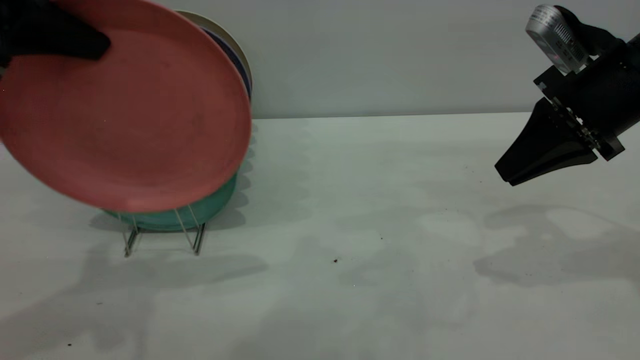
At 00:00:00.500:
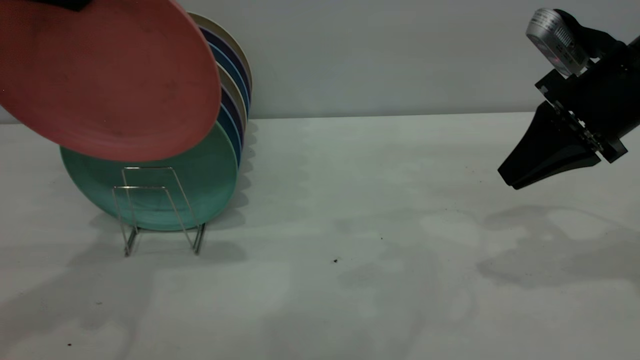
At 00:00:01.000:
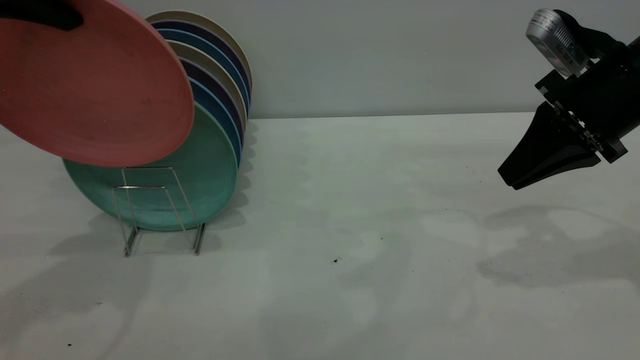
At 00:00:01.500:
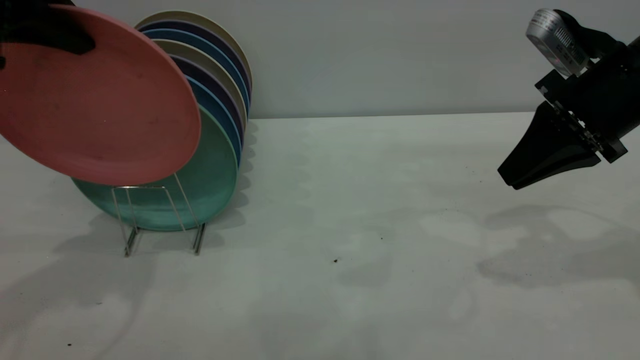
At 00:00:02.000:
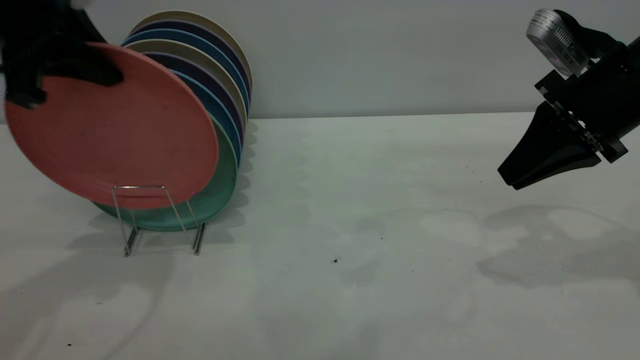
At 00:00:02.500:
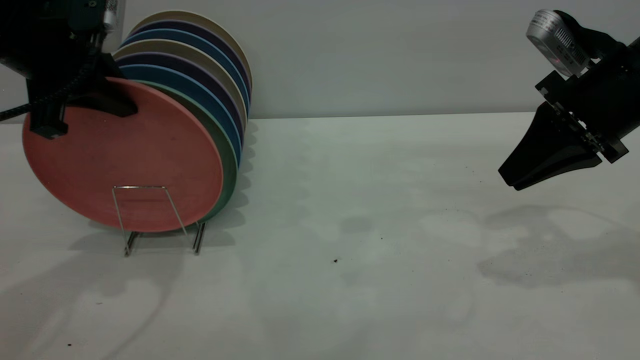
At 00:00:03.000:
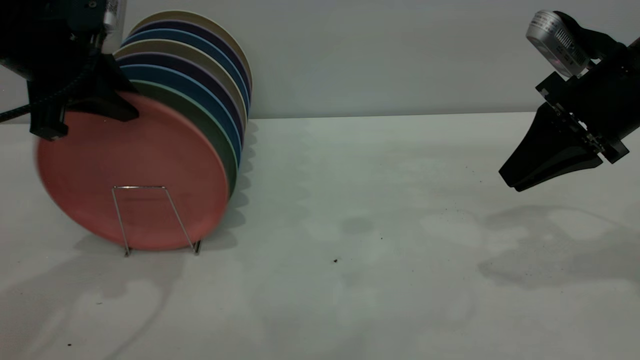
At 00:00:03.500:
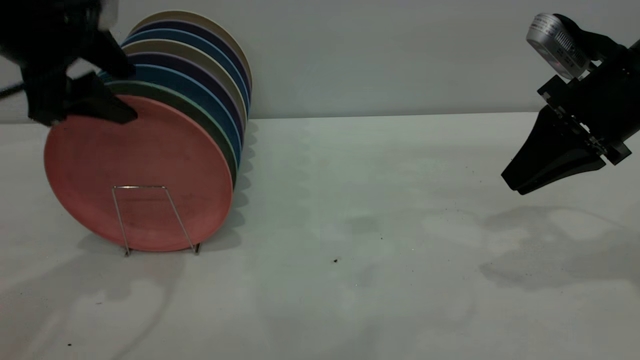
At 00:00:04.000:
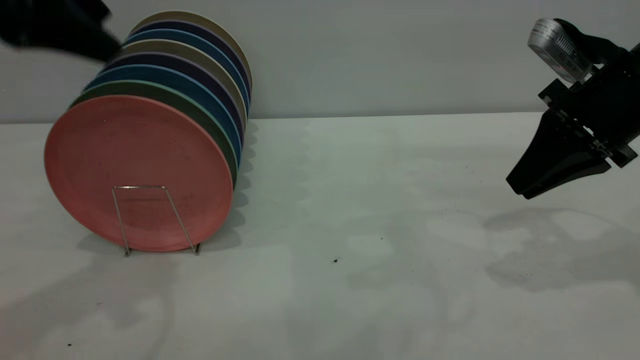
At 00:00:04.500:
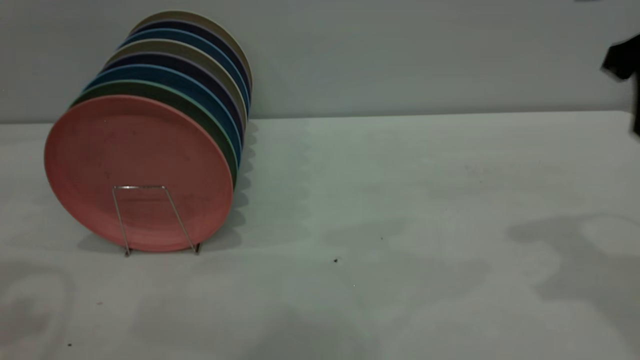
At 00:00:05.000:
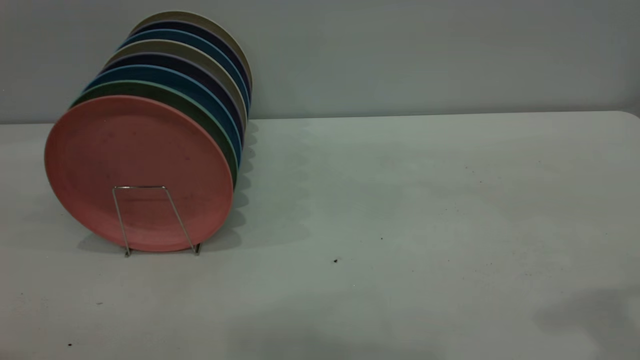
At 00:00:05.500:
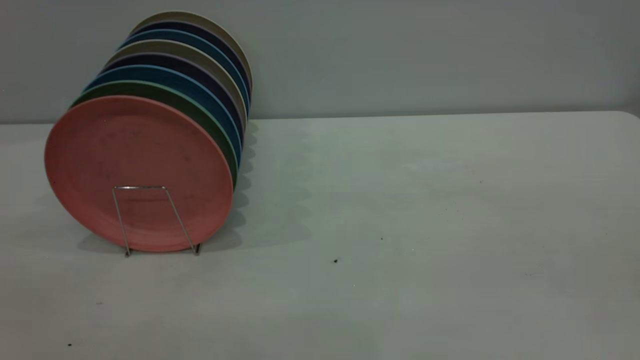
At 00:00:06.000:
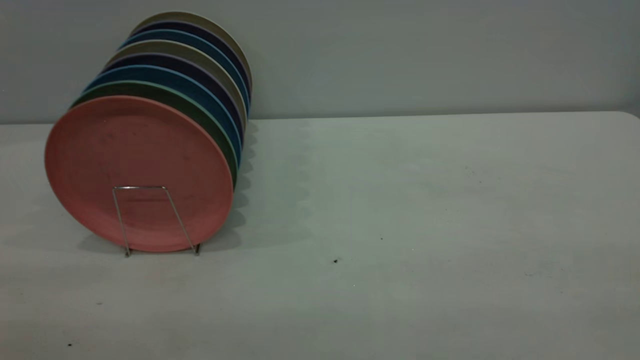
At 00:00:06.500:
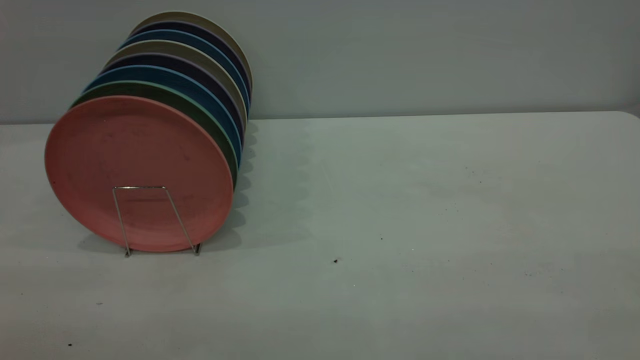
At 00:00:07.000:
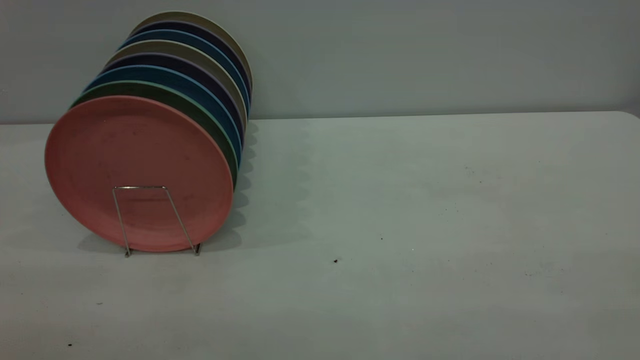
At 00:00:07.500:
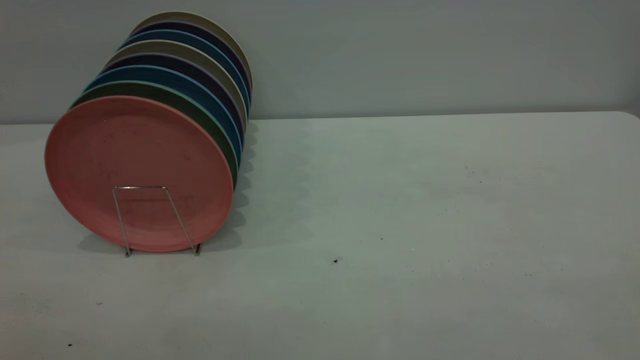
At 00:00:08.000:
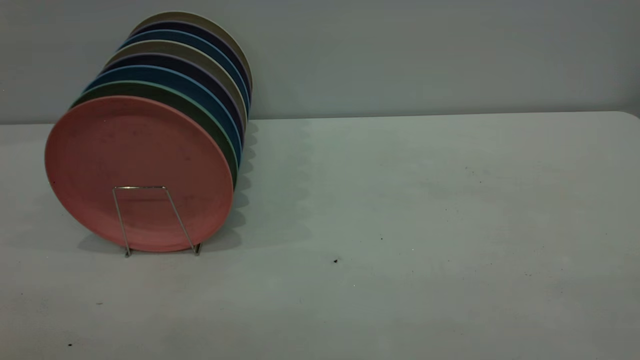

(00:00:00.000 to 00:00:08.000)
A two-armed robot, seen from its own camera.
Task of the whole recording: the right gripper grasp the pink plate, the right gripper pass the pink plate to the left gripper, and the left gripper place the pink plate on the plate rack.
Step, 00:00:00.000 - 00:00:03.500: Place the plate on the shelf.
00:00:00.000 - 00:00:02.000: The left gripper moves forward, roughly 5 cm.
00:00:02.000 - 00:00:04.000: The left gripper moves upward, about 5 cm, and opens its fingers.
00:00:04.000 - 00:00:06.000: The left gripper is displaced backward by about 30 cm; the right gripper heads backward and upward, covering roughly 35 cm, and opens.

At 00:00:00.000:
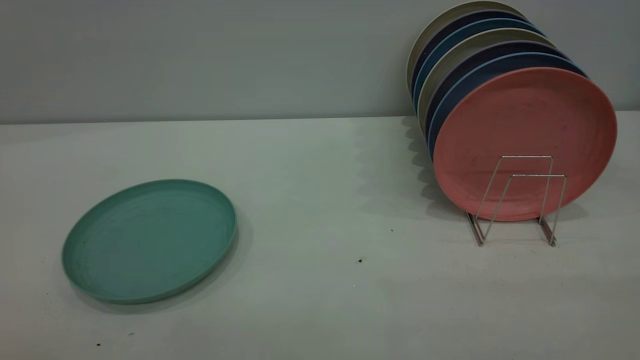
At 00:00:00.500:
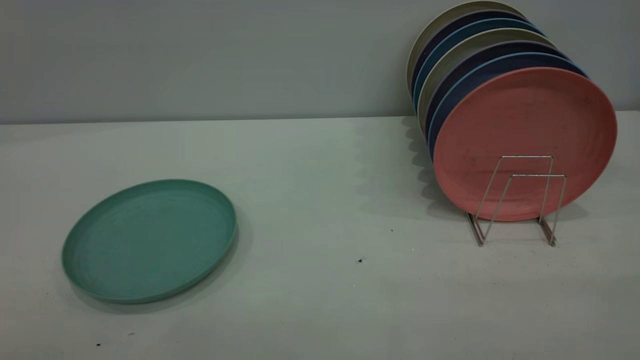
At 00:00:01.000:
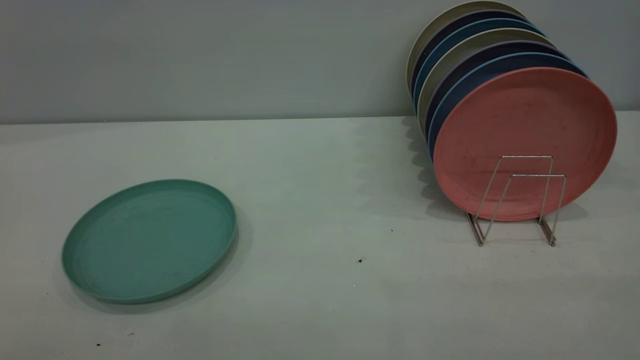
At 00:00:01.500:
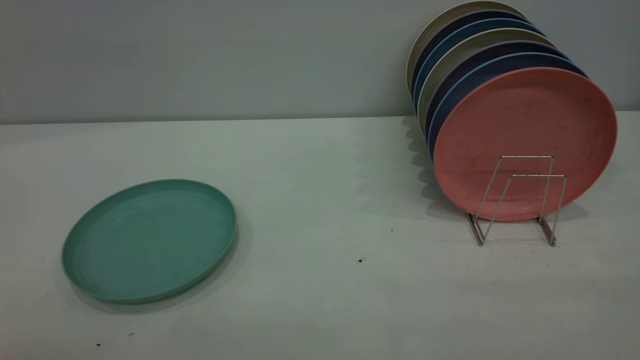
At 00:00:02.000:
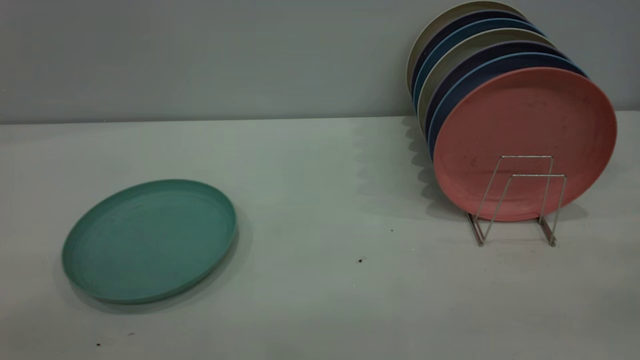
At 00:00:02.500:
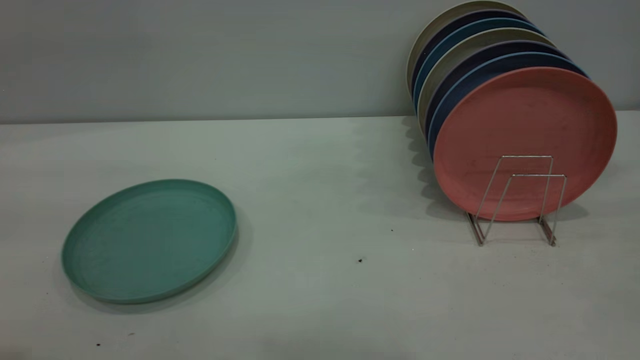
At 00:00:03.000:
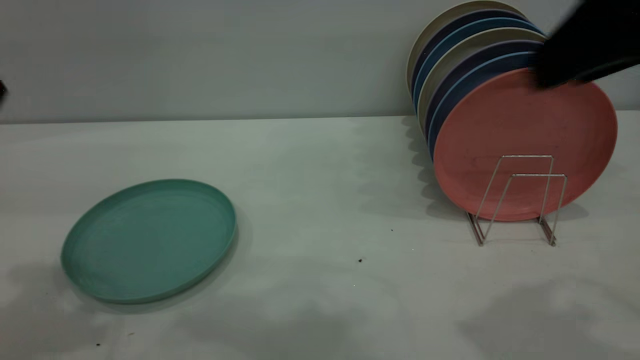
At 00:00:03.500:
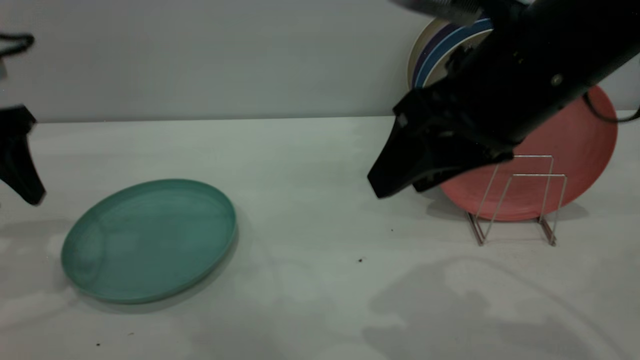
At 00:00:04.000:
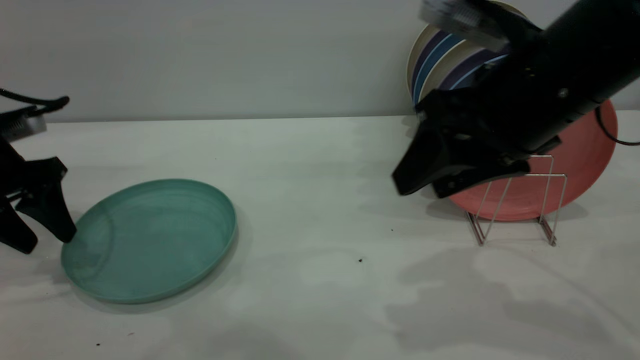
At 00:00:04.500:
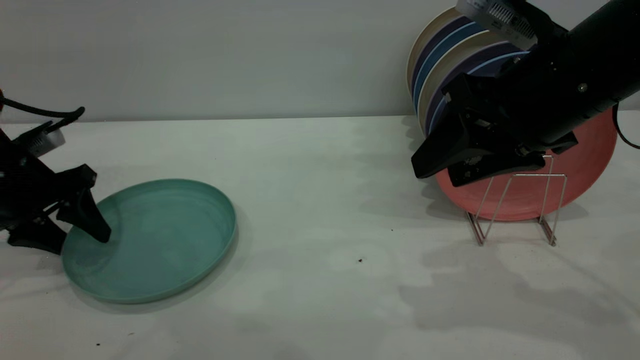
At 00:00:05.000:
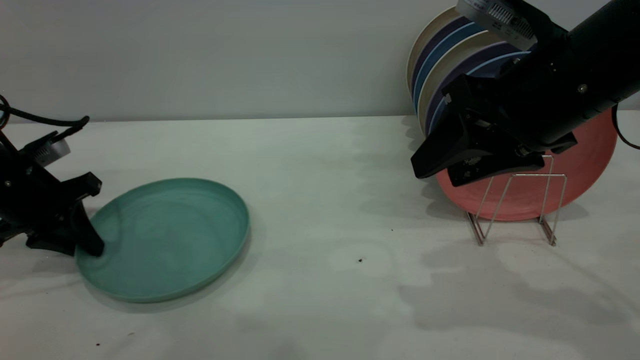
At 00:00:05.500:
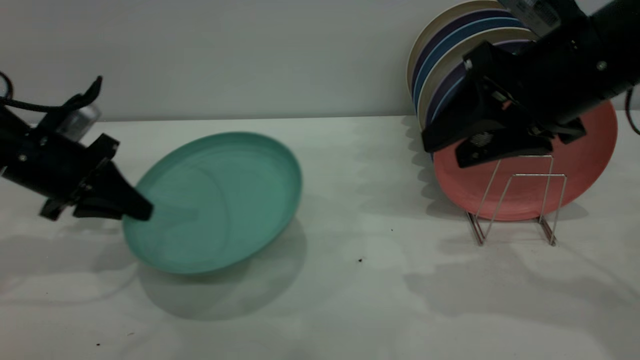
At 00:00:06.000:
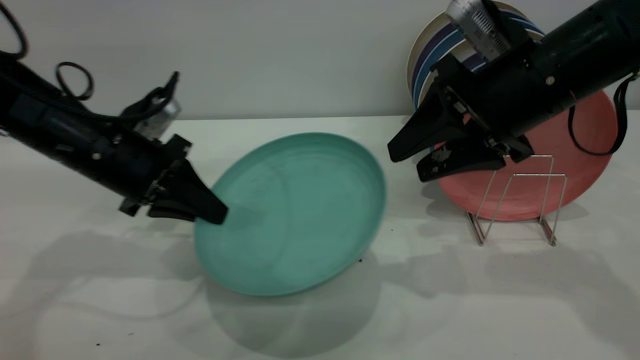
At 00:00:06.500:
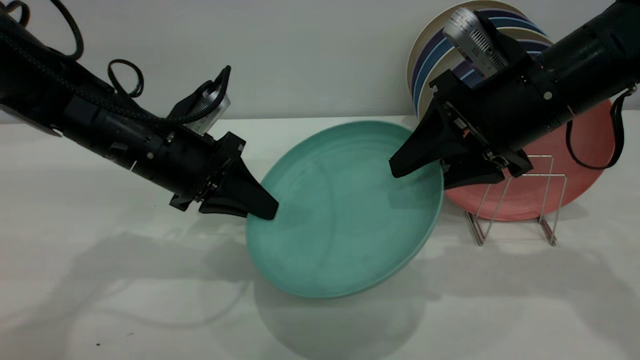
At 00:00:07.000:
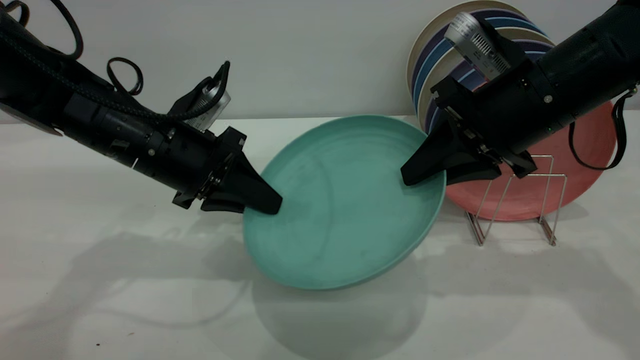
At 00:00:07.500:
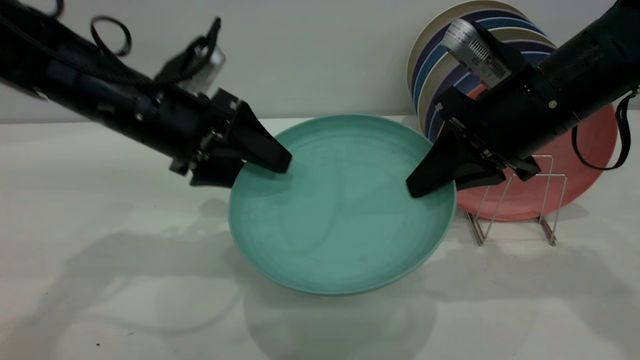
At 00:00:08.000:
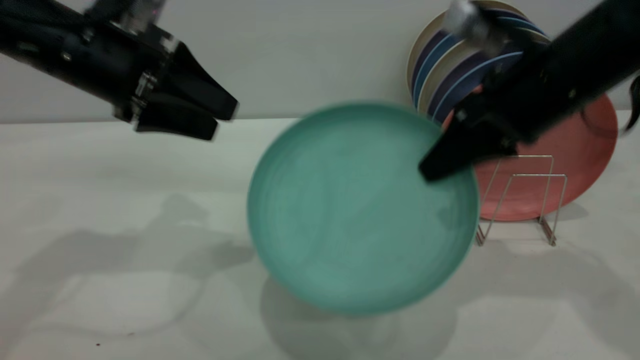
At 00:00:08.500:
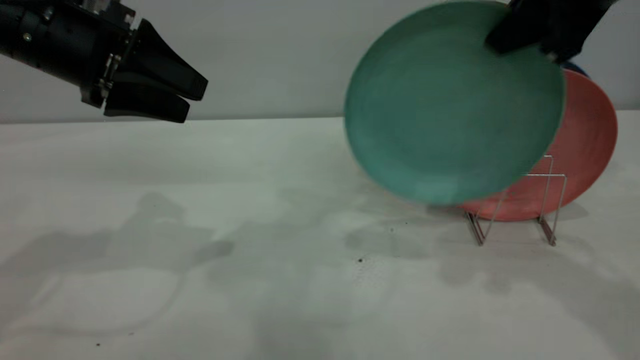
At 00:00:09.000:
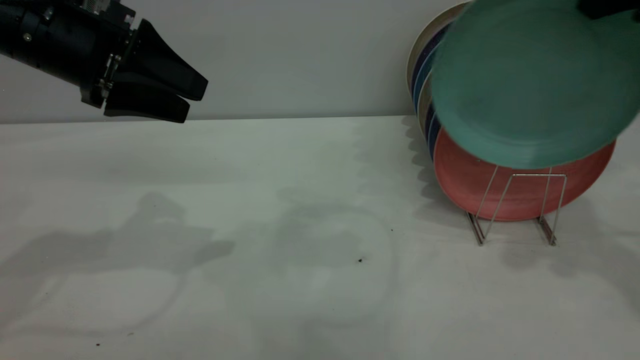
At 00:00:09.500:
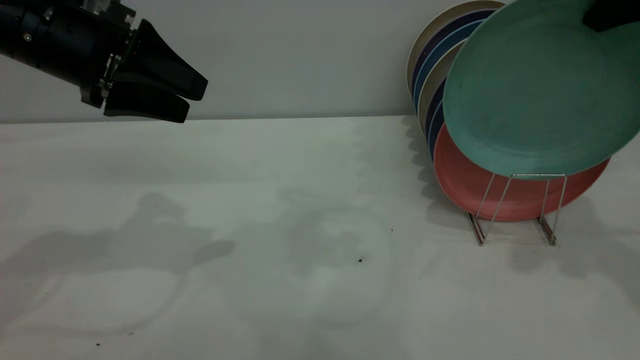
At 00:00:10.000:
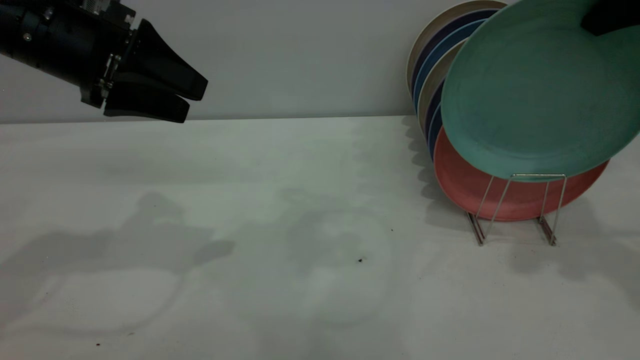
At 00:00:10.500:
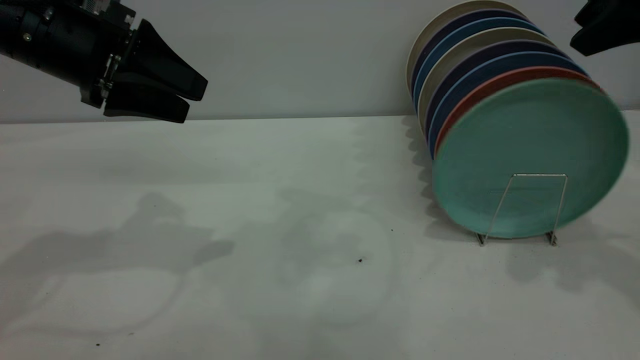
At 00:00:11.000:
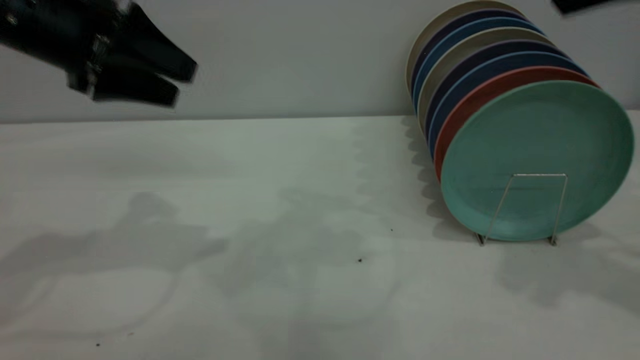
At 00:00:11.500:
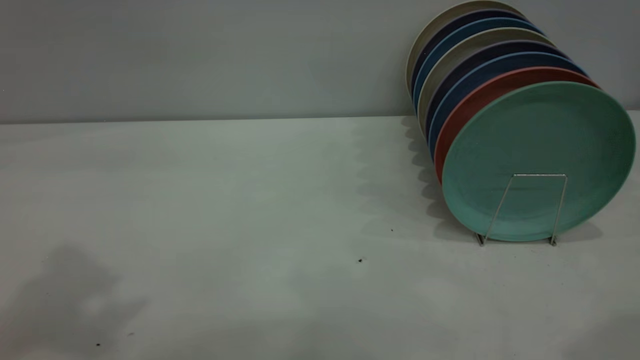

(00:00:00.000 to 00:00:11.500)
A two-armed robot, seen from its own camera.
Task of the whole recording: the left gripper grasp the green plate, the left gripper pass the green plate to the right gripper, and the right gripper place the green plate on the plate rack.
Step, 00:00:00.000 - 00:00:05.500: Pick up the plate with the left gripper.
Step, 00:00:06.000 - 00:00:07.500: Pass the plate from the left gripper to the right gripper.
Step, 00:00:08.000 - 00:00:10.500: Place the plate on the shelf.
00:00:02.000 - 00:00:04.000: The right gripper shifts about 35 cm forward, to the left and downward. The left gripper moves forward and downward, approximately 40 cm.
00:00:04.000 - 00:00:06.000: The left gripper travels to the right by about 15 cm, and closes up. The right gripper is displaced forward by approximately 5 cm.
00:00:06.000 - 00:00:07.500: The right gripper closes up. Meanwhile the left gripper moves some 5 cm, and opens its fingers.
00:00:07.500 - 00:00:09.500: The left gripper is displaced upward and to the left by approximately 10 cm, while the right gripper travels upward and to the right by some 15 cm.
00:00:09.500 - 00:00:11.500: The left gripper heads upward and backward, covering about 25 cm; the right gripper moves backward and upward, approximately 20 cm, and opens.
